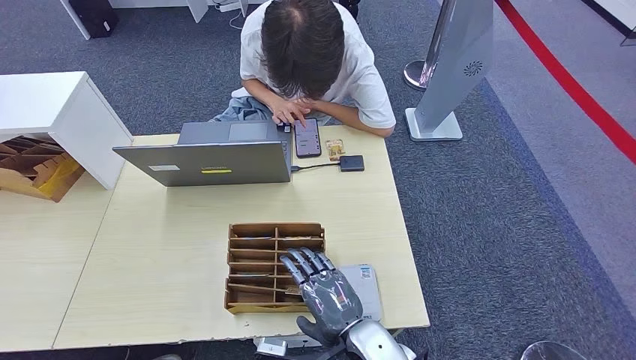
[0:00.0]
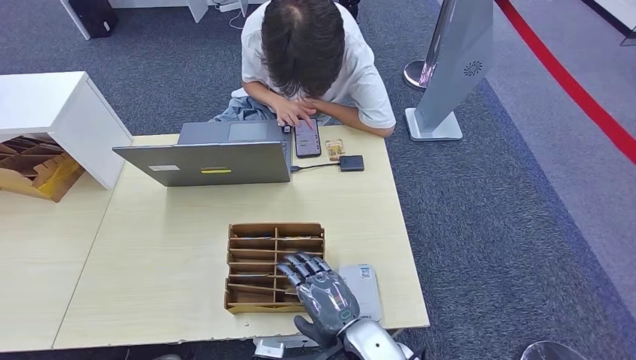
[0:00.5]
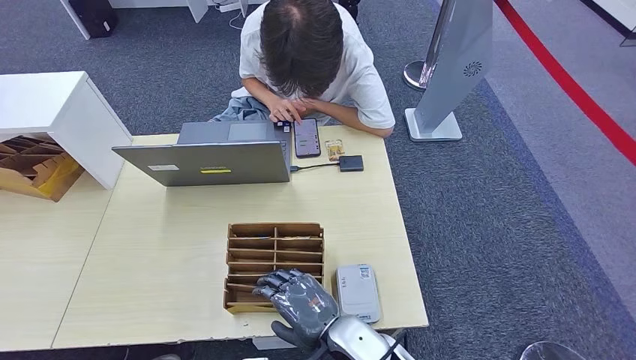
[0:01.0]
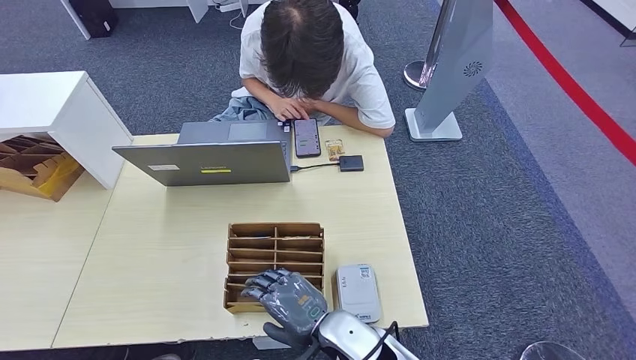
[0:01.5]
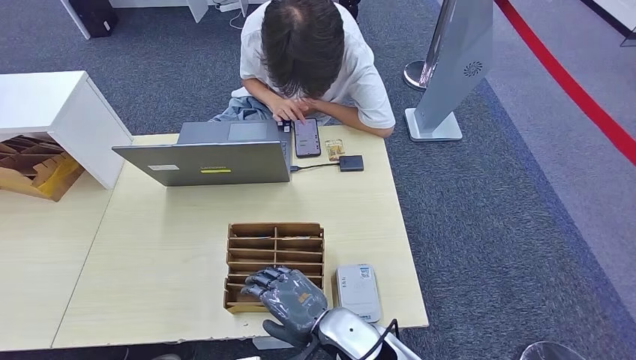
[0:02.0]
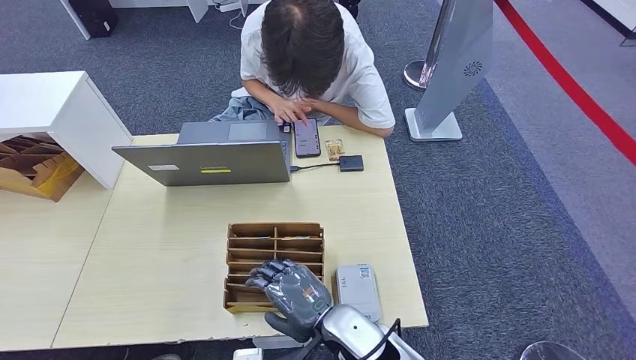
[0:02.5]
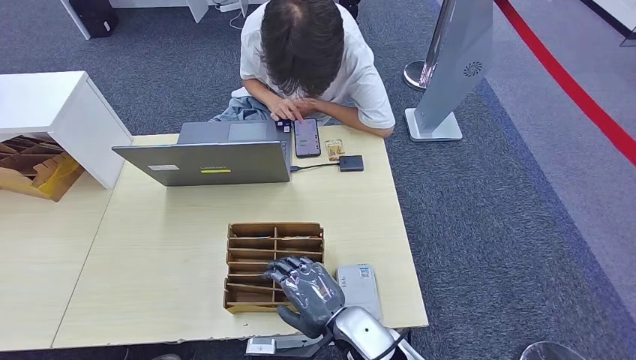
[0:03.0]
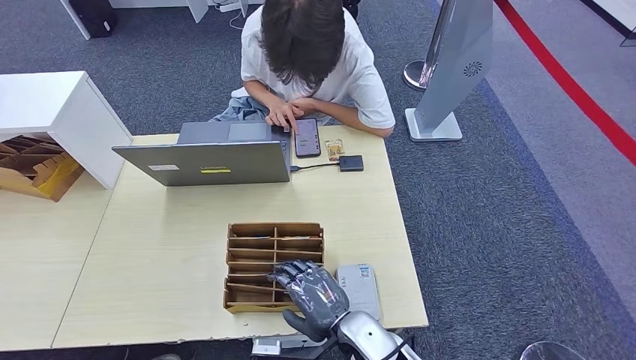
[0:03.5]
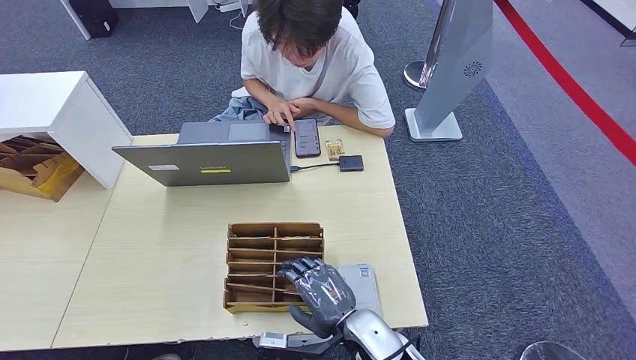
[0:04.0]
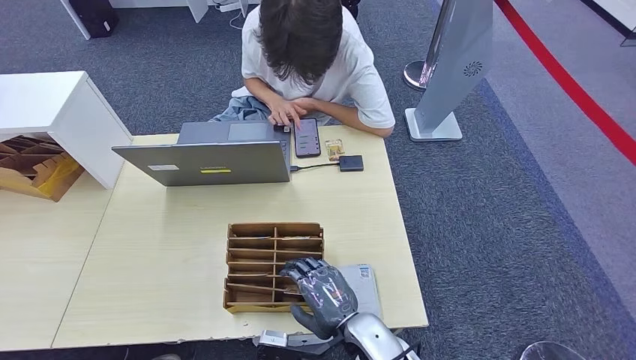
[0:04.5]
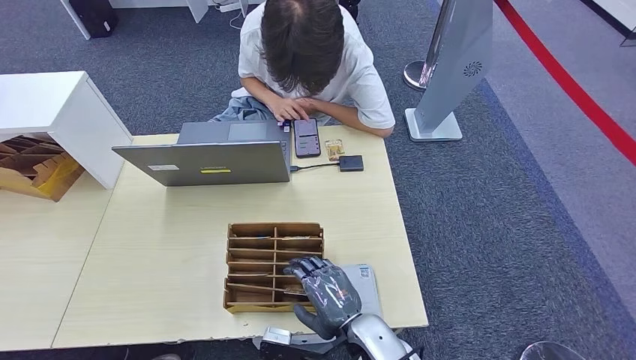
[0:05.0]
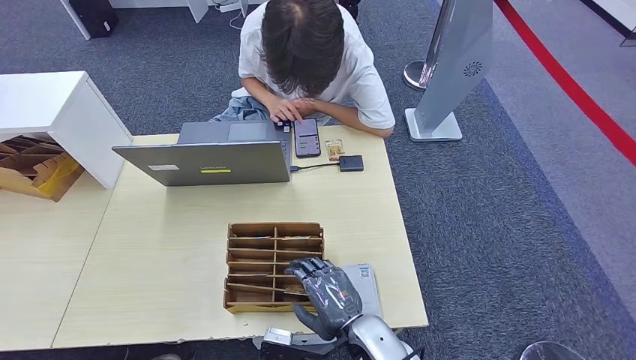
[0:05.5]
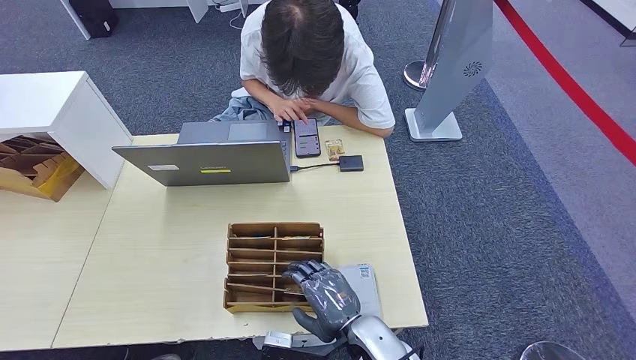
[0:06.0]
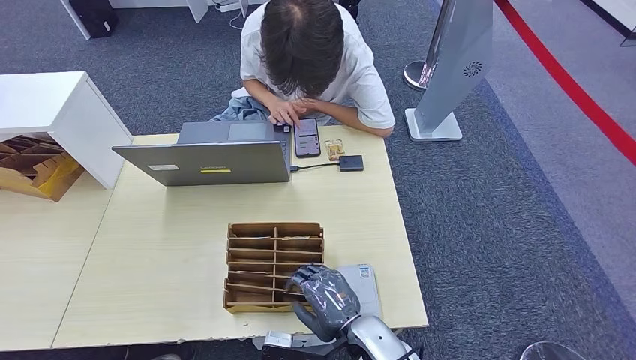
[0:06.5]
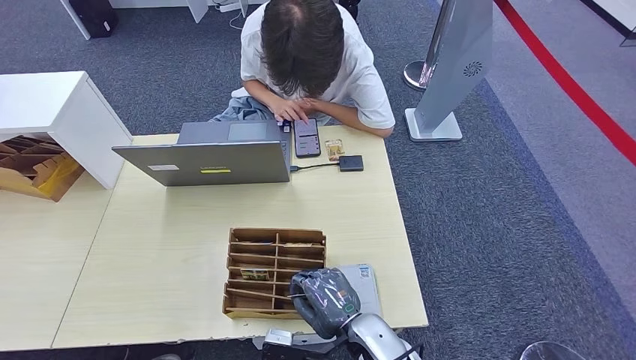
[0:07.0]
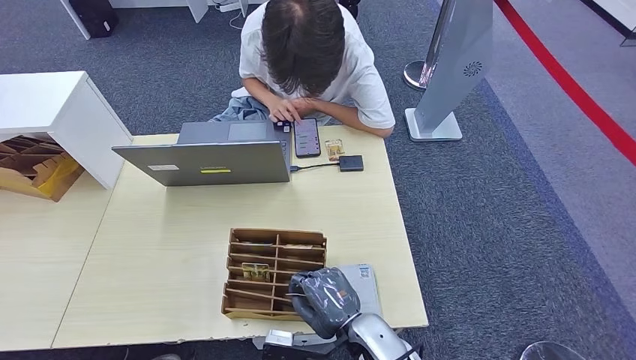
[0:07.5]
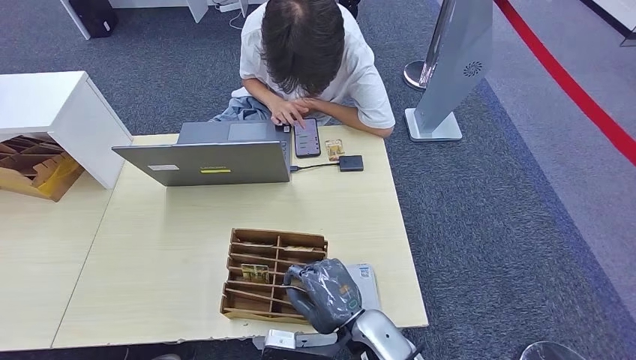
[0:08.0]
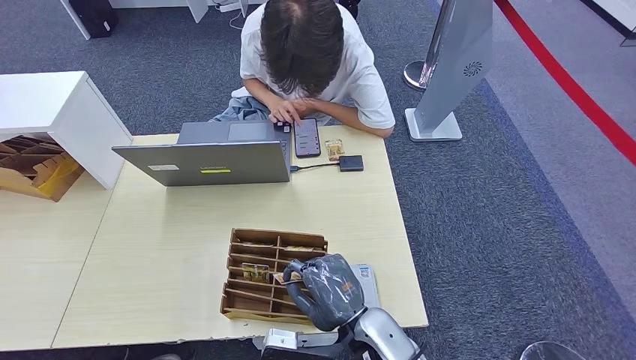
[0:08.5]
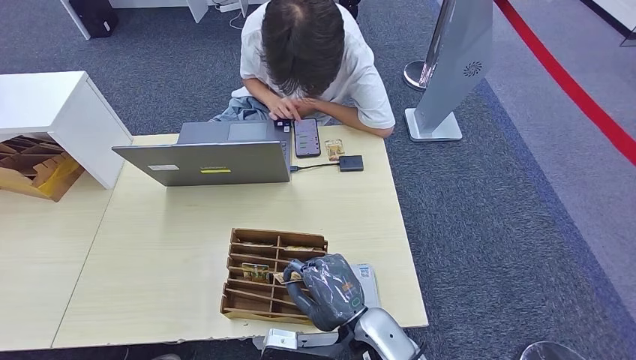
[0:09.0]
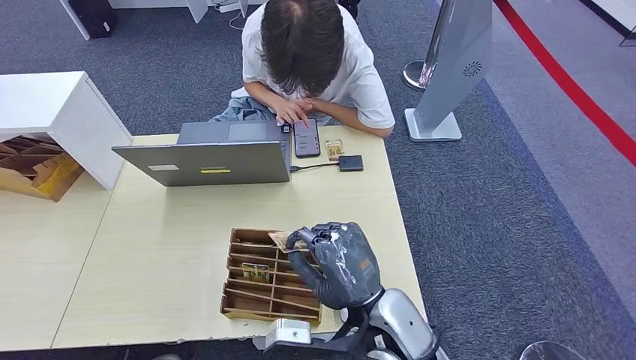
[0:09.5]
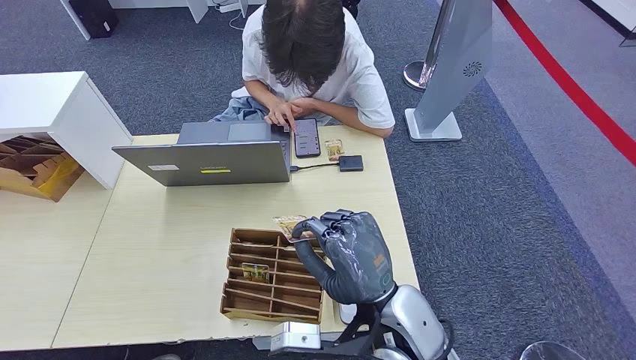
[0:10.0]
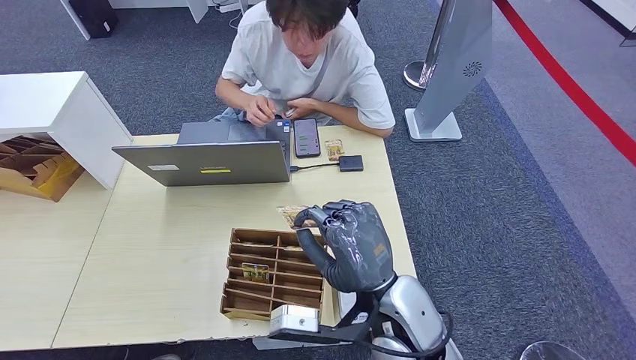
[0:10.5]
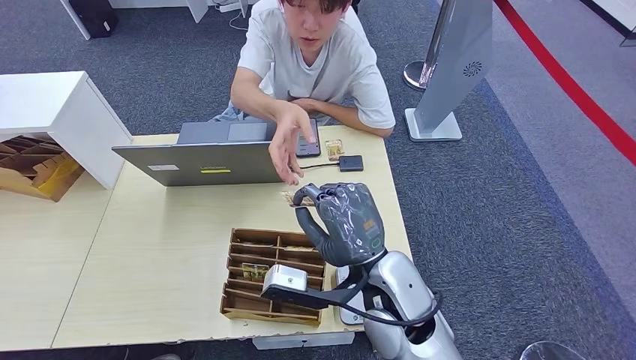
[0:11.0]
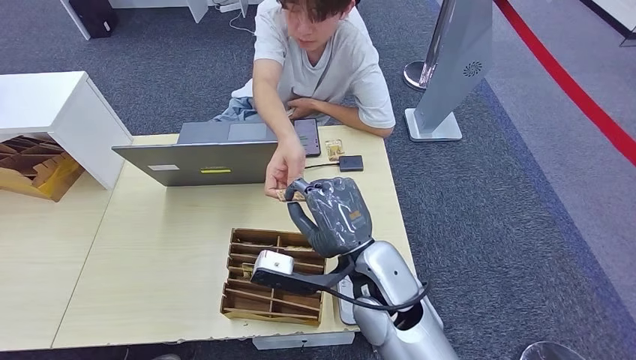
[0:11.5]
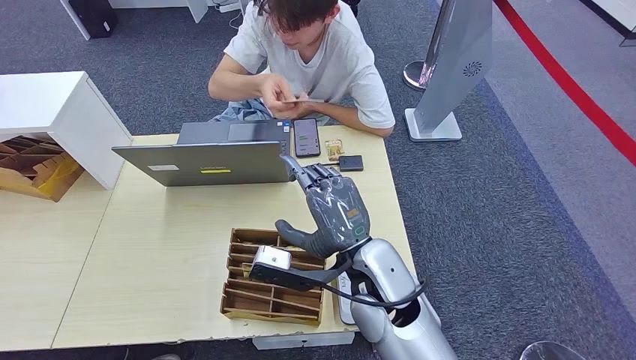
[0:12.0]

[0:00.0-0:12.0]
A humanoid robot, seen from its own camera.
Step, 0:08.0 to 0:12.0: Hand the room key to the person.
0:00.0 to 0:02.0: The left hand goes approximately 15 cm backward and to the left.
0:02.0 to 0:08.0: The hands make only small movements.
0:08.0 to 0:10.0: The right hand heads upward, covering about 10 cm.
0:10.0 to 0:12.0: The right hand goes roughly 5 cm forward.
